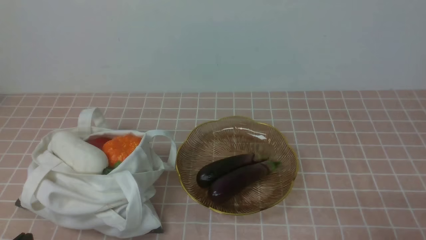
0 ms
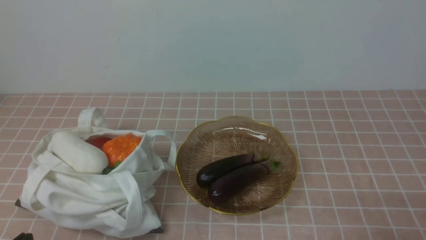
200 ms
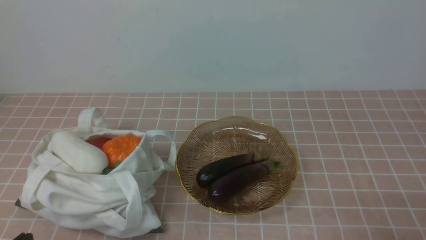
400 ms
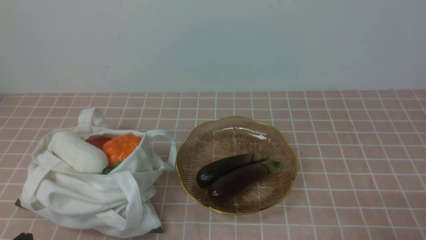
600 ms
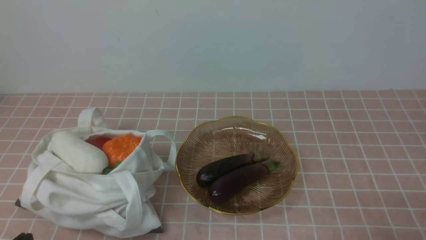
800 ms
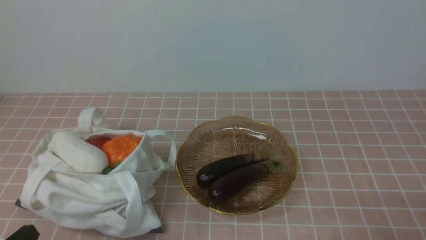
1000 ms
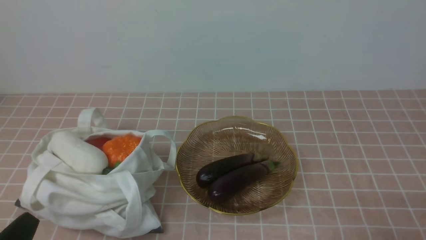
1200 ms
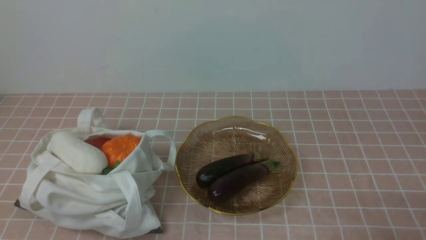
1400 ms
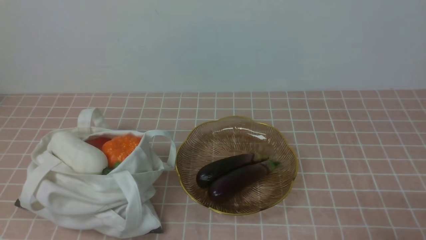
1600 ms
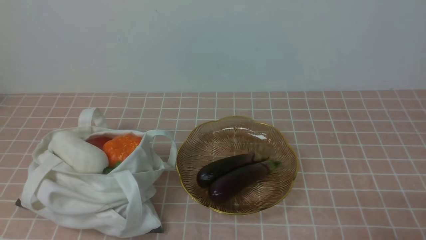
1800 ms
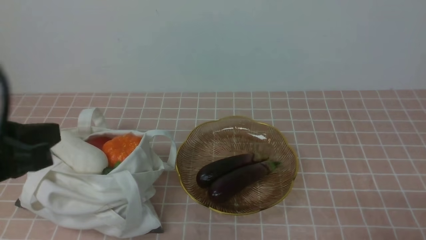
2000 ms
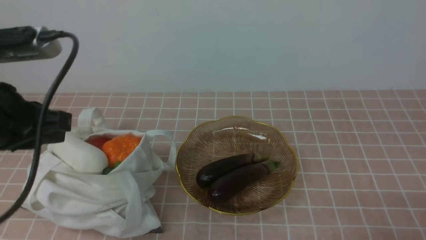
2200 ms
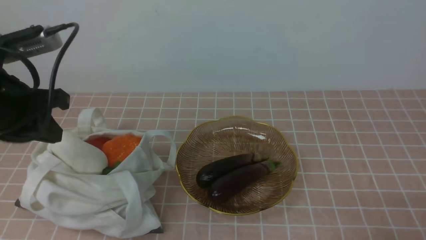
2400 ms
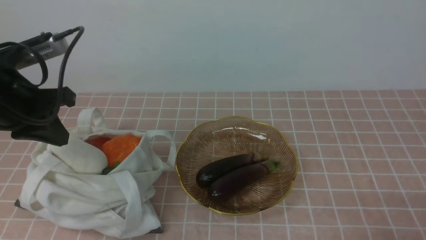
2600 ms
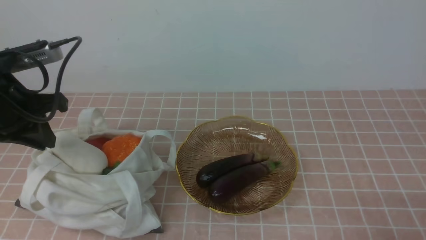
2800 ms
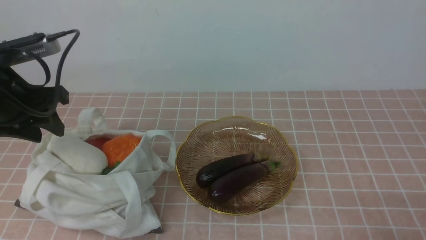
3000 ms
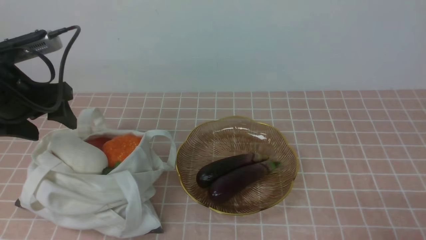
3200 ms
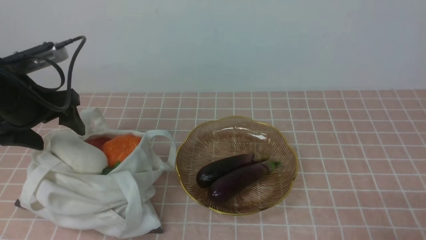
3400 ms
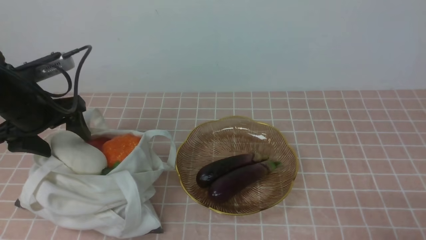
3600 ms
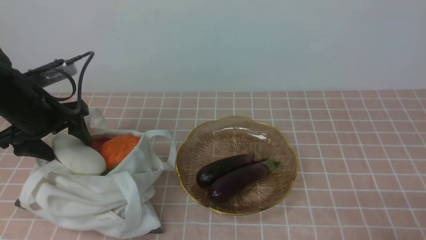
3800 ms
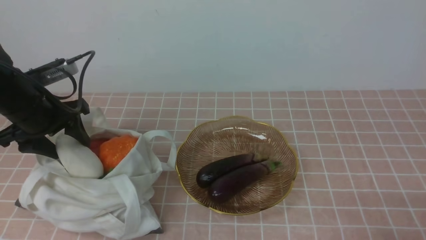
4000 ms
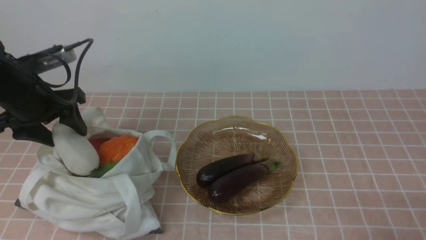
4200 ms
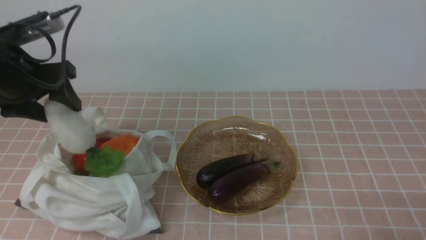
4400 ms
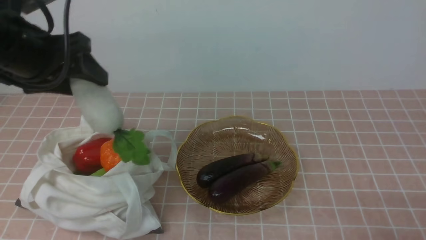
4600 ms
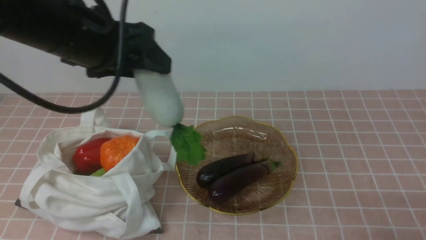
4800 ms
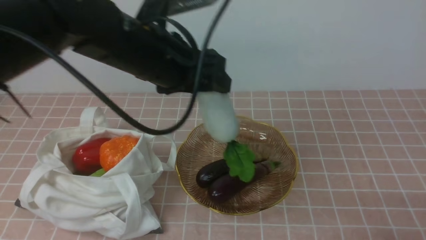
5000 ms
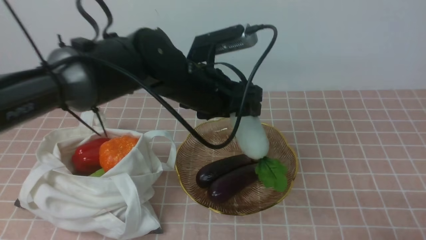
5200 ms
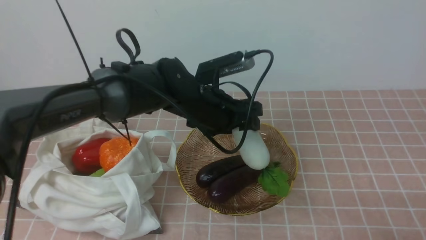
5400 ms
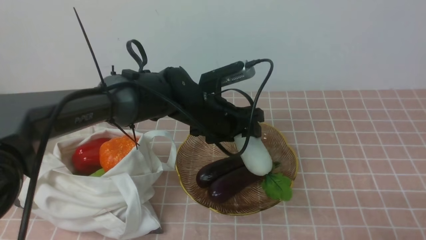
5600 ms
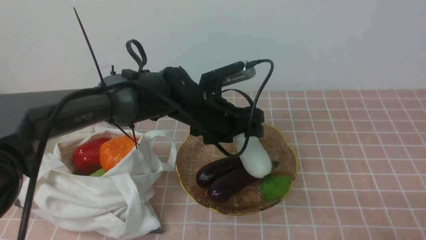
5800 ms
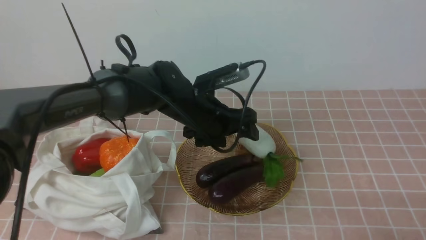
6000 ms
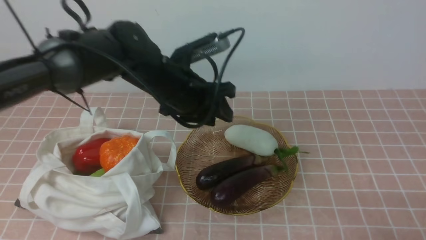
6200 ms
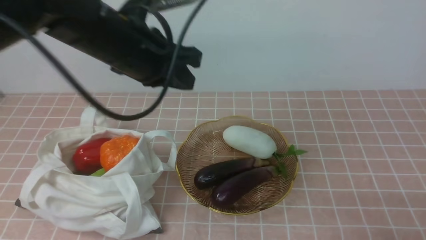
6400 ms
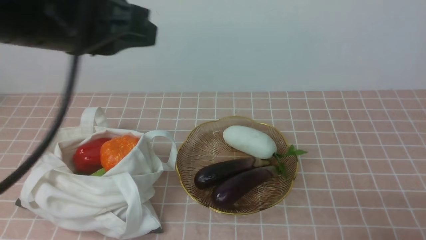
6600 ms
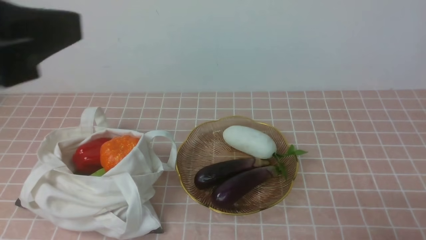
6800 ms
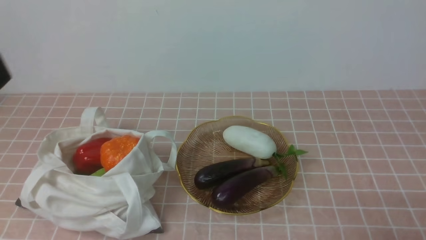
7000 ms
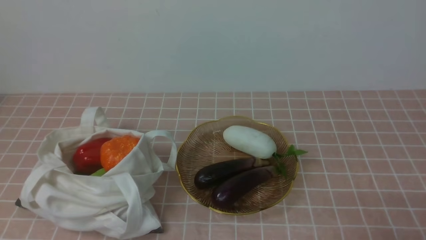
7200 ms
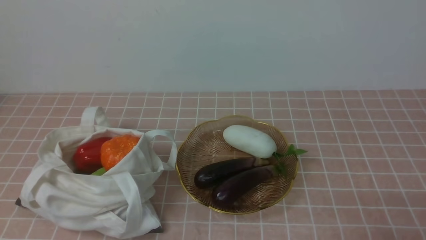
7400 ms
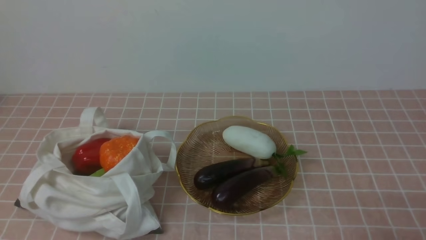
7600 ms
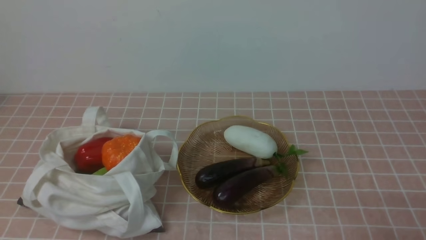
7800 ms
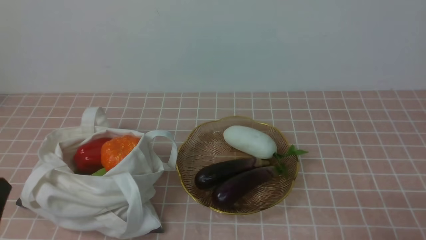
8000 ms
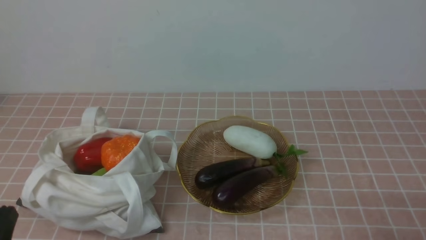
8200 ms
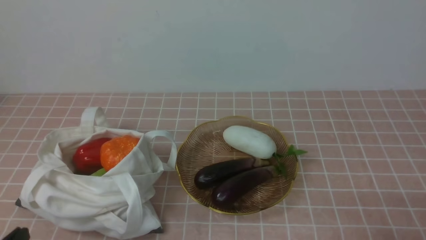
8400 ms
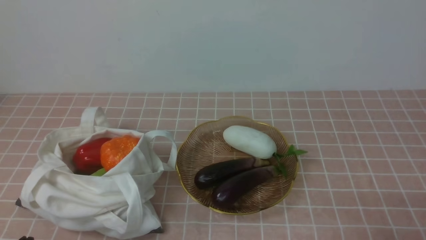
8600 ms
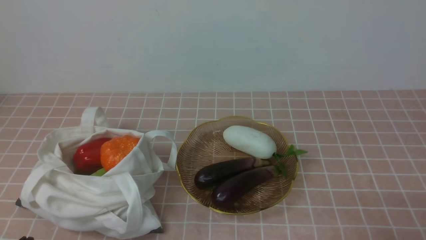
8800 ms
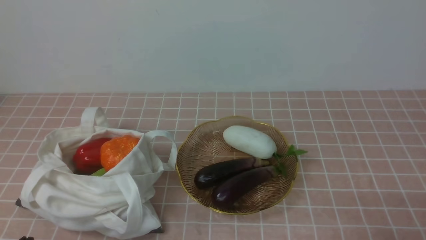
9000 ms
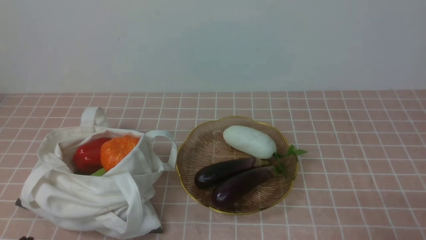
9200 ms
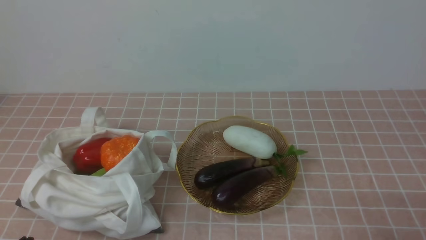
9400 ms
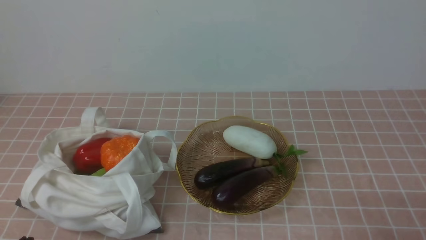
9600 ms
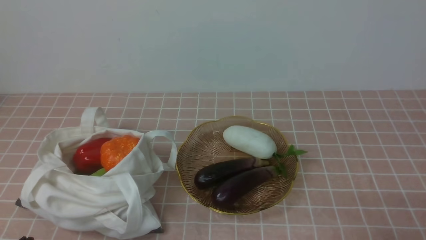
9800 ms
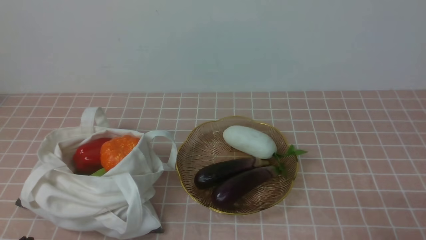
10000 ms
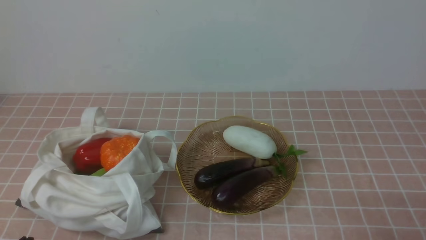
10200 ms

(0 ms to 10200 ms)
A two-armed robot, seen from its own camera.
Task of the whole recording: take vegetables from bag on pink coffee tablecloth place on plate.
Step, 0 ms - 3800 ms: Grasp the radish with left gripper.
Step, 4000 ms - 6200 ms: Place the radish on the plate with left gripper.
1400 ms - 3000 ms: The left gripper moves forward, some 25 cm, and opens up.
3000 ms - 4400 ms: The left gripper reaches some 5 cm downward, then returns.
4400 ms - 5800 ms: The left gripper heads to the right and downward, covering roughly 25 cm.
5800 ms - 7200 ms: The left gripper moves backward, to the left and upward, about 40 cm, and closes its fingers.
8800 ms - 10200 ms: Both grippers stay about where they are.
